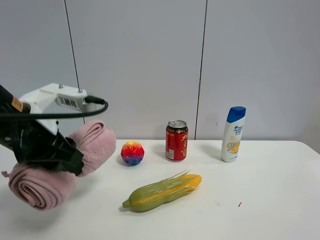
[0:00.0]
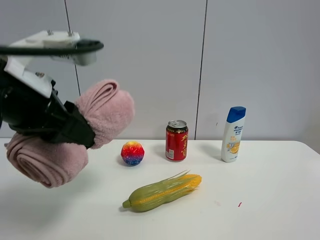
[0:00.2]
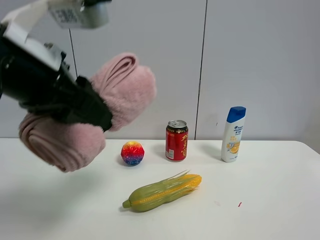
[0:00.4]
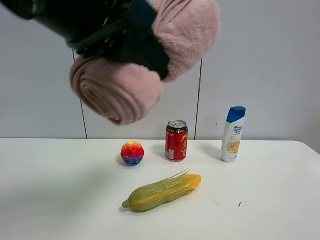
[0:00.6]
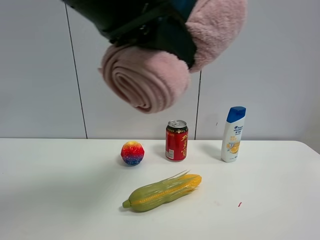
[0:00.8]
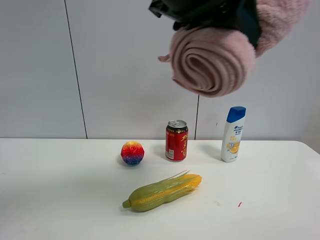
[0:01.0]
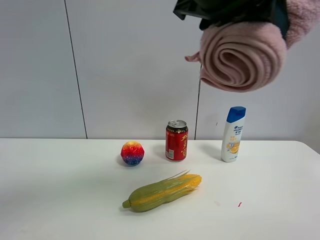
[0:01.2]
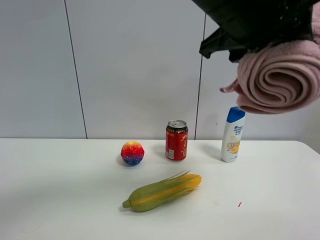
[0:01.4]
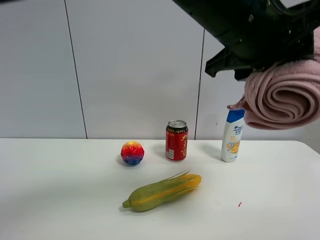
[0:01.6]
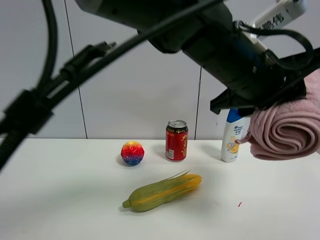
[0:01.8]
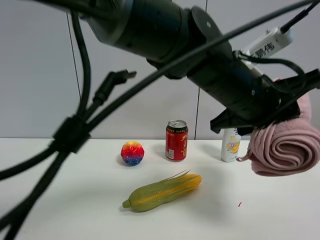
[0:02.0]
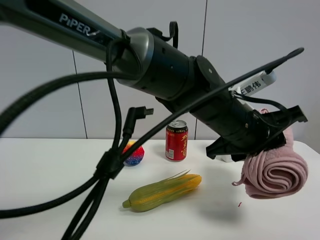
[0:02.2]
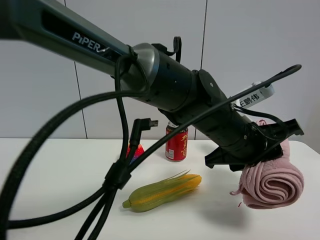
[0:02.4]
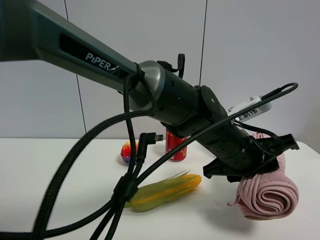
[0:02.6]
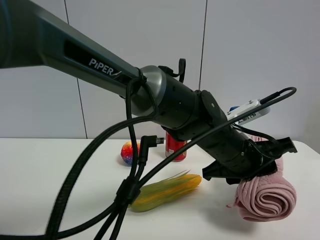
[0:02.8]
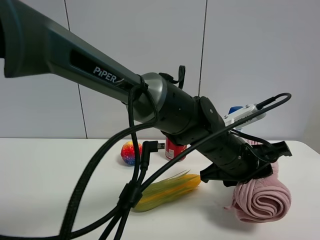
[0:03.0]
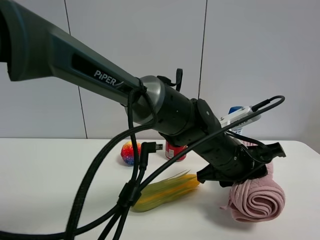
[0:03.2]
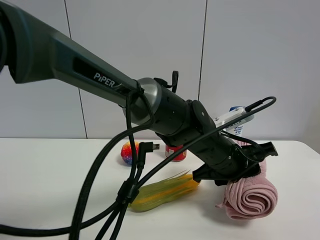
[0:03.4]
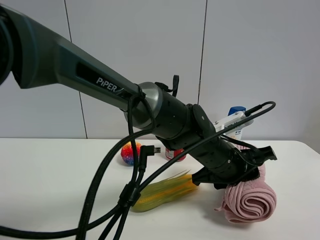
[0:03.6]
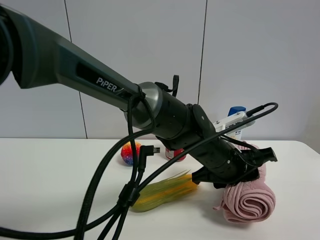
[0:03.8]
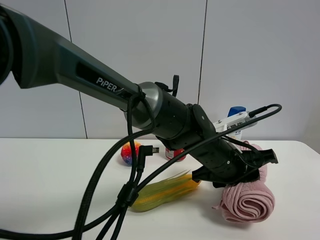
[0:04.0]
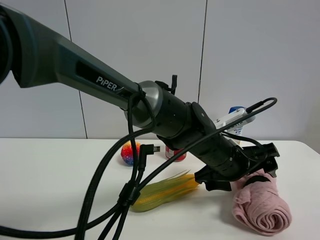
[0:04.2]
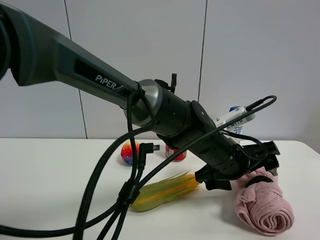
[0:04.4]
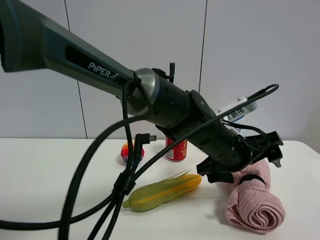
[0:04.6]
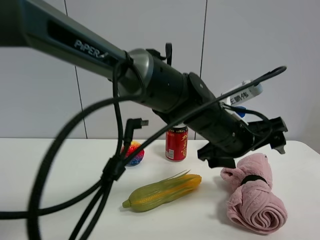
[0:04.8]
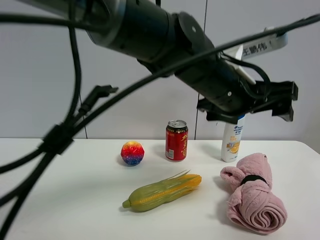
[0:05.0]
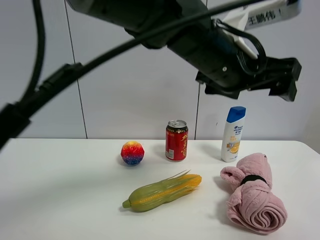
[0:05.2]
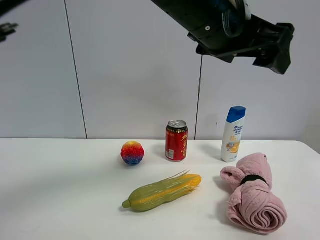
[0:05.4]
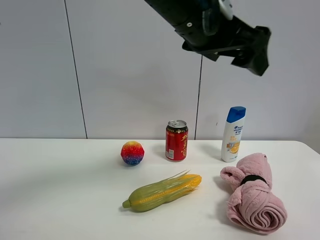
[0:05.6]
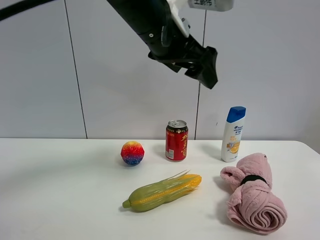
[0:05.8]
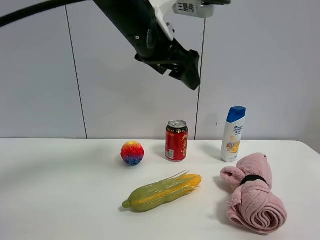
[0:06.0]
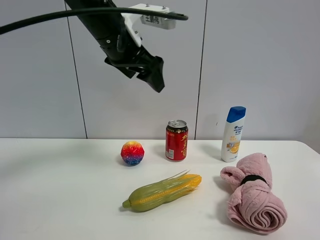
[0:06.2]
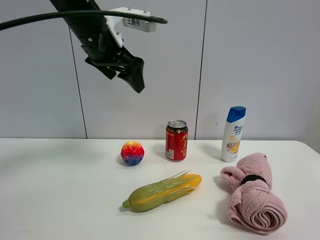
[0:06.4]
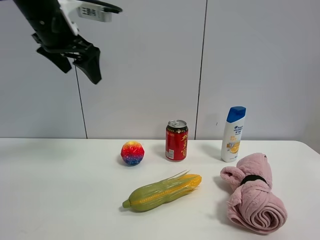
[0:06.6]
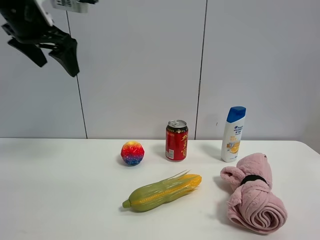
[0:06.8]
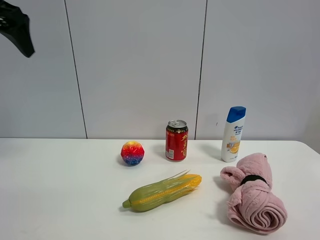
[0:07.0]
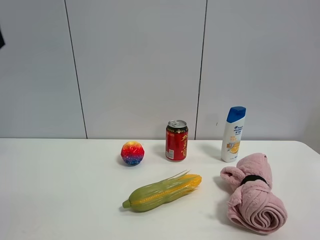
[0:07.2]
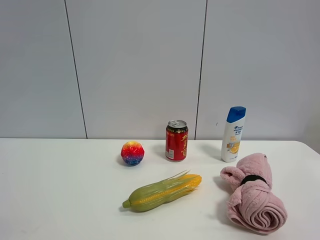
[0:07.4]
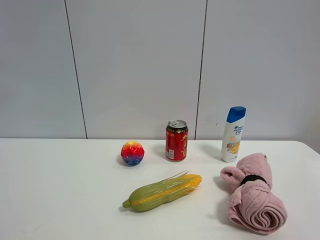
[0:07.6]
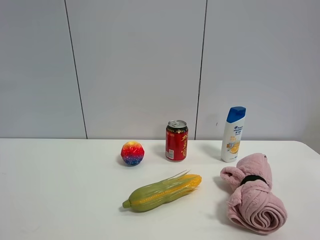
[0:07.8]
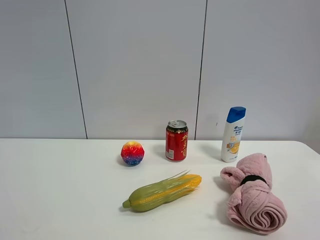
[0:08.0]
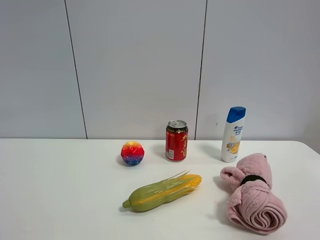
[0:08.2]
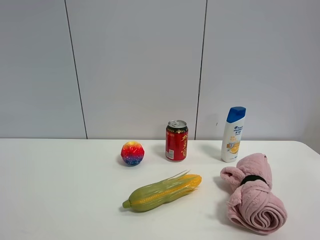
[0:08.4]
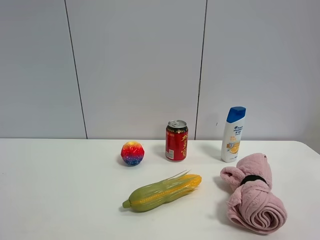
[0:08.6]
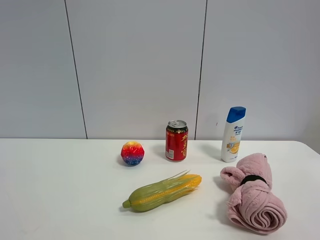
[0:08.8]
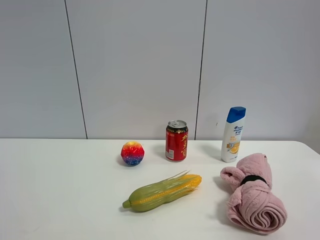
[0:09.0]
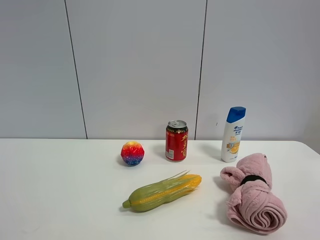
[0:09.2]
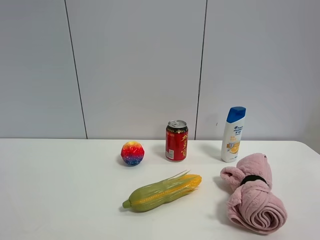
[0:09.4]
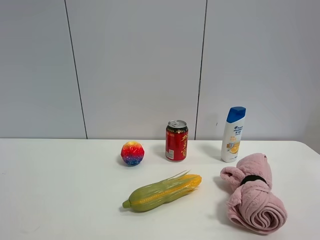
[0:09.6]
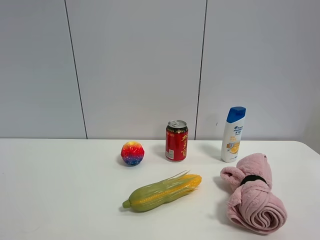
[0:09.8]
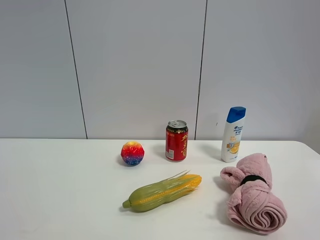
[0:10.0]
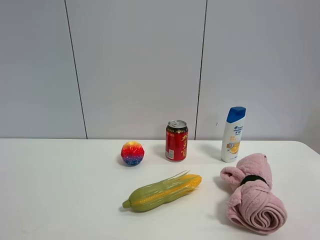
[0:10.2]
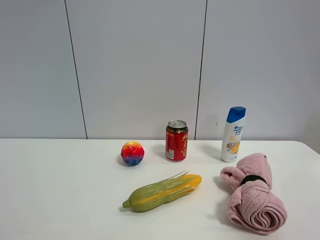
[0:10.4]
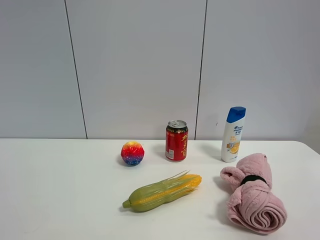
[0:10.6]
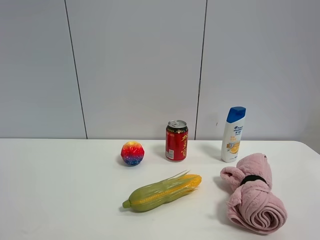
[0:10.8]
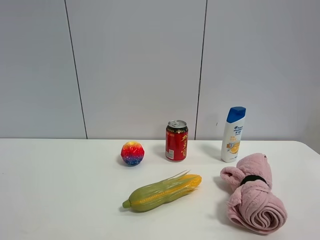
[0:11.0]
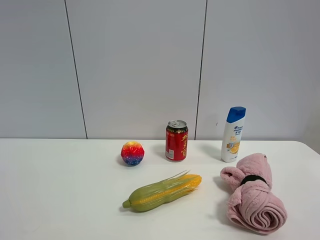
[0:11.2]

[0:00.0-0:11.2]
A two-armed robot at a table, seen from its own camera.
Task of the whole recording: the gripper move the object.
Step, 0:00.0 to 0:04.8: Place the pink towel on the table with the left gripper.
0:00.0 to 0:01.6: The left gripper moves to the right, roughly 30 cm.
0:01.6 to 0:03.2: The left gripper is displaced downward by roughly 20 cm.
0:03.2 to 0:04.8: The left gripper goes roughly 5 cm upward, and opens its fingers.
0:04.8 to 0:06.4: The left gripper goes some 25 cm to the left and upward.
0:06.4 to 0:08.0: The left gripper heads backward and to the left, covering some 35 cm.

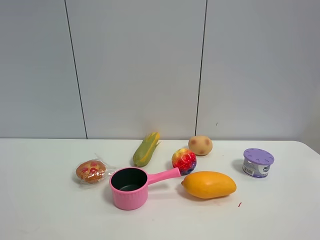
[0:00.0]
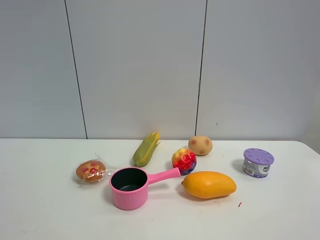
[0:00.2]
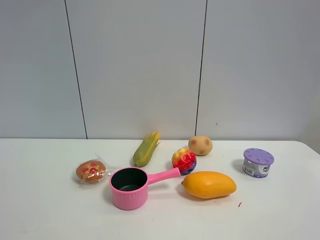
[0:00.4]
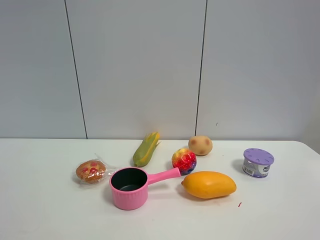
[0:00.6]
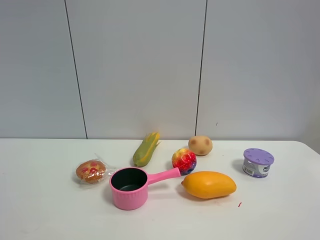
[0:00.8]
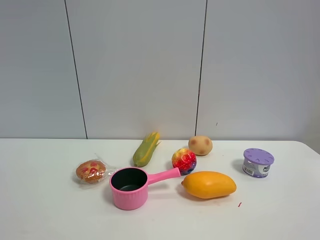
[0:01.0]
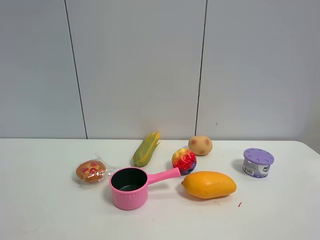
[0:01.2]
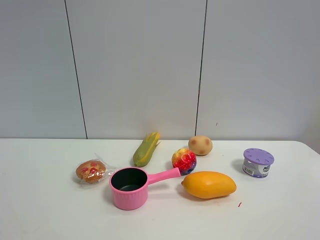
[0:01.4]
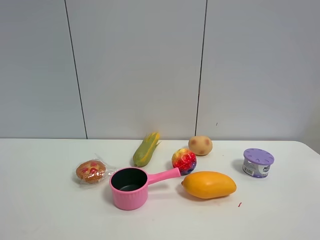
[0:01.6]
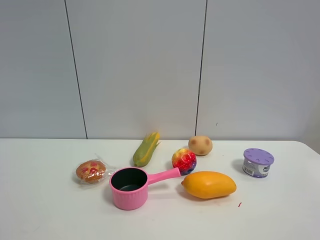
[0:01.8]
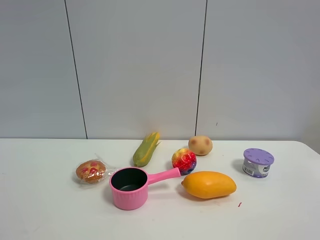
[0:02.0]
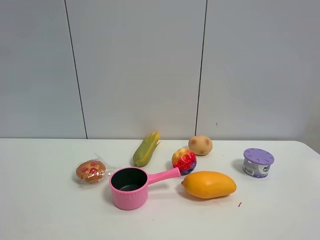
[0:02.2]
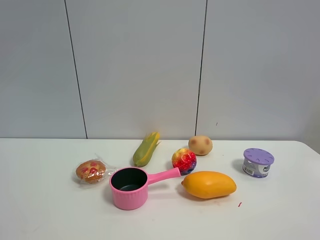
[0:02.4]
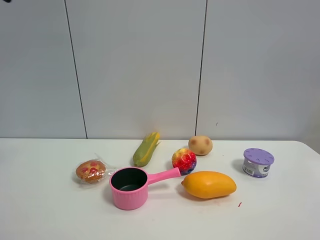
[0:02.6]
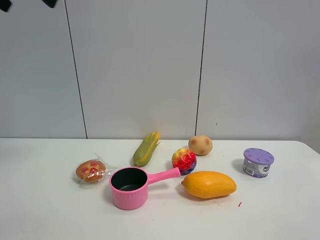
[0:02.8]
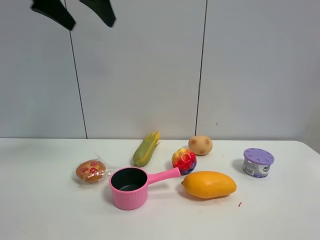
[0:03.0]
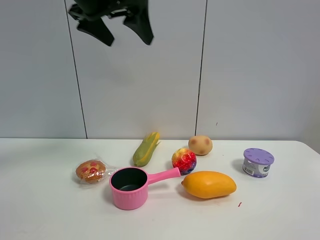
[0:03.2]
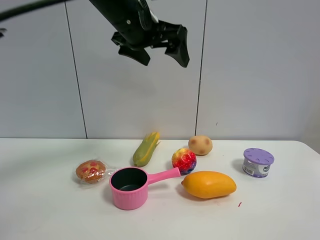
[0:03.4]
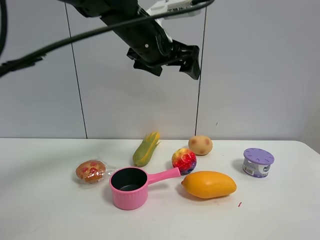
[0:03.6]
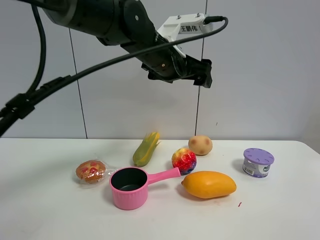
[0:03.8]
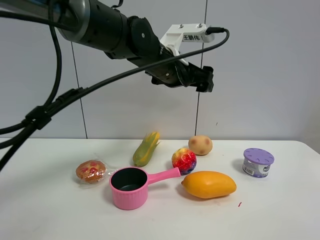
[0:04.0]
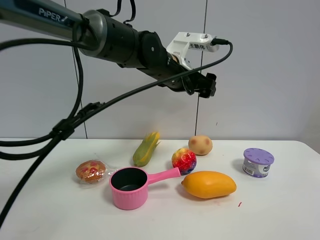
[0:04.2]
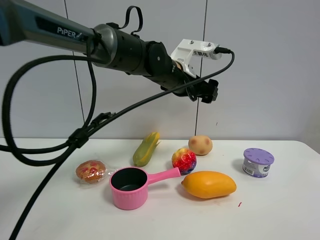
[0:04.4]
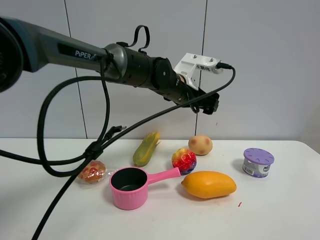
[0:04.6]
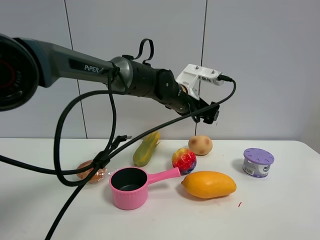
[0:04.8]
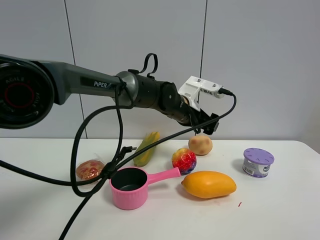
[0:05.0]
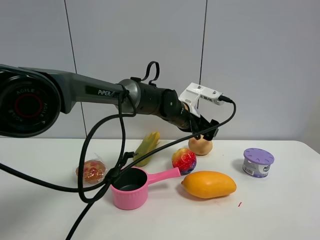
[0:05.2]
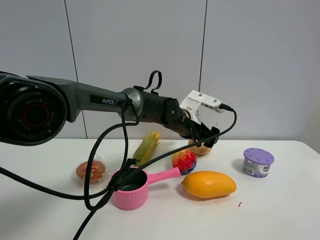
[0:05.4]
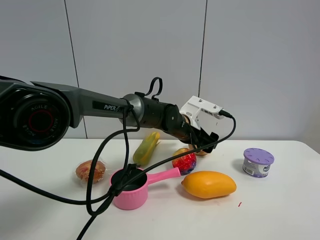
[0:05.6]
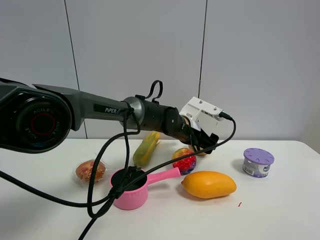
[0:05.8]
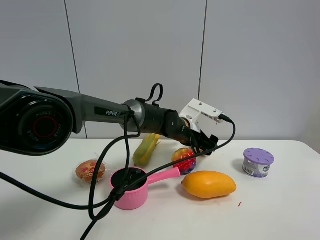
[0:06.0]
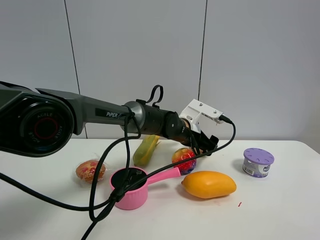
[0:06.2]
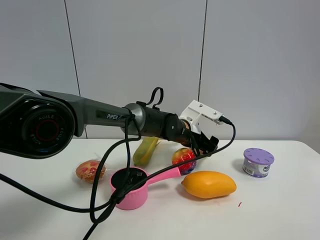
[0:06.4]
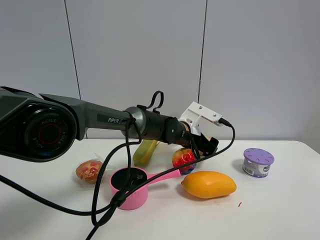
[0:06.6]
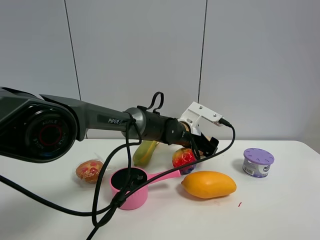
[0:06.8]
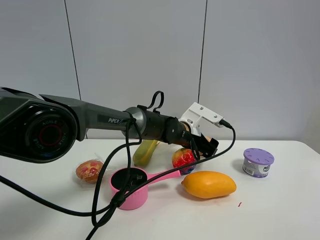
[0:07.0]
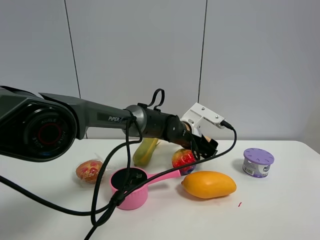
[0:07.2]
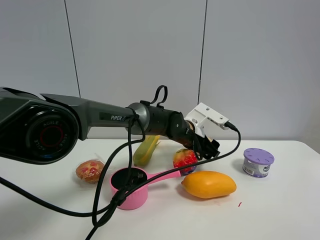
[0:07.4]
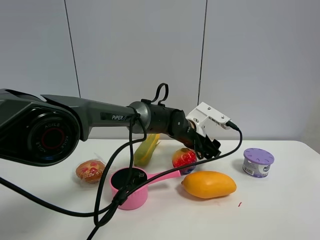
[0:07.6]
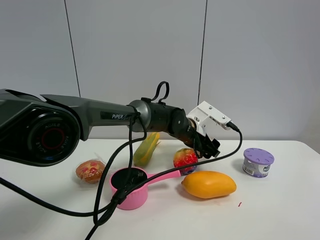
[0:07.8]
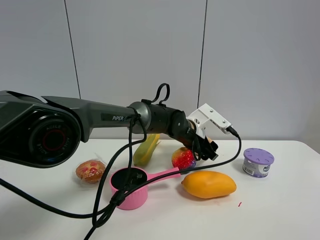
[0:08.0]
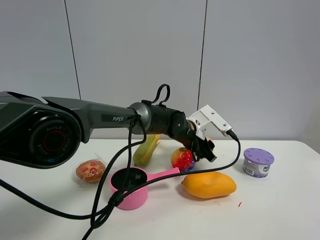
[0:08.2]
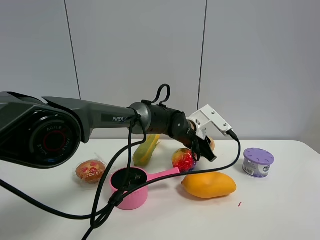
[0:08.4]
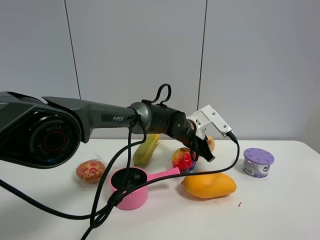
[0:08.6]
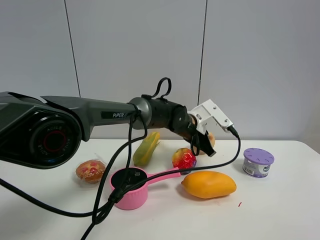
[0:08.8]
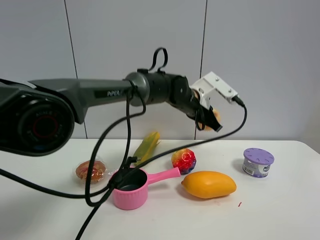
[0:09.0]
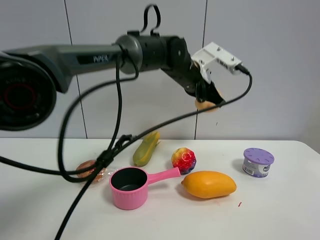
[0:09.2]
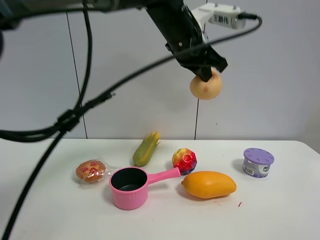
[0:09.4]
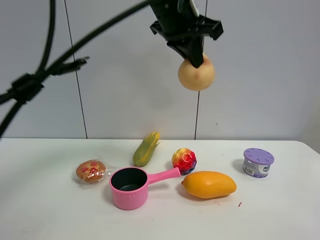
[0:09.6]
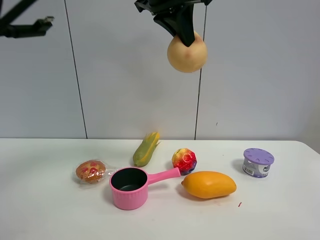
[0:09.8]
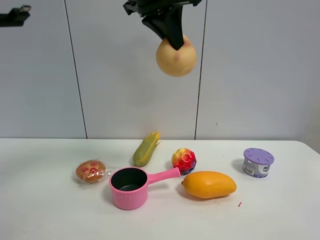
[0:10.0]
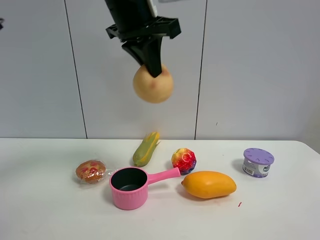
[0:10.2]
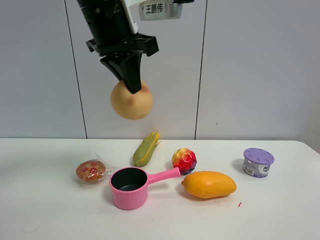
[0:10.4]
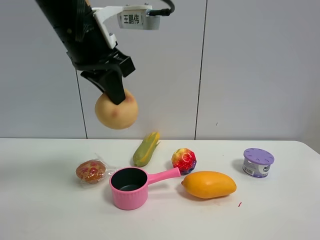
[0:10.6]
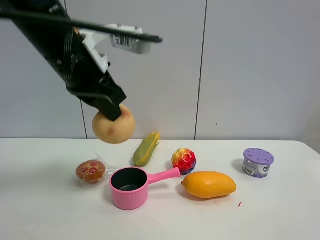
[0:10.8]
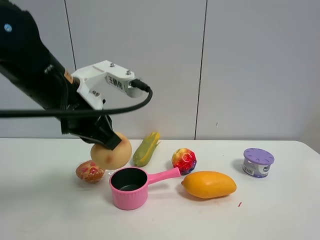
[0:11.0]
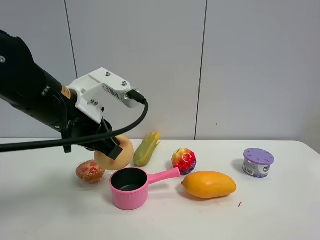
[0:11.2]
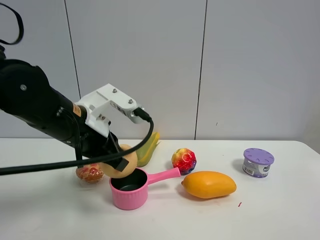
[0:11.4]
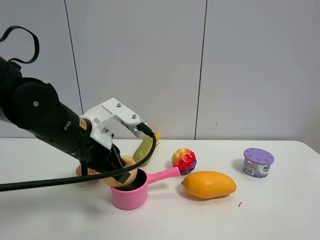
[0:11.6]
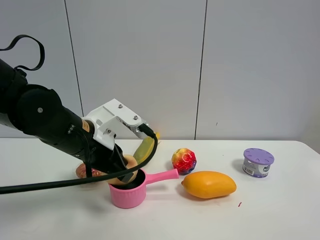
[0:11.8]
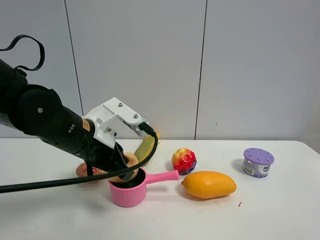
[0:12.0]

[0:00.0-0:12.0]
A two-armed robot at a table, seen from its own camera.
Task of the whole recording: the gripper move the object.
Step, 0:00.0 to 0:08.4: Grasp the egg yolk pastry with the left gripper.
0:00.0 to 0:01.6: The two grippers keep their place.
0:01.6 to 0:03.0: The left gripper heads forward, covering about 35 cm.
0:03.0 to 0:04.4: The left gripper goes some 30 cm to the right, downward and forward.
0:04.4 to 0:06.0: The left gripper moves downward, about 15 cm.
0:06.0 to 0:07.6: There are only small adjustments of the grippers.
0:07.6 to 0:09.0: The left gripper heads upward, covering roughly 10 cm, and closes up.
0:09.0 to 0:10.4: The left gripper shifts approximately 25 cm upward, to the left and backward.
0:10.4 to 0:12.0: The left gripper is displaced downward by about 20 cm.
